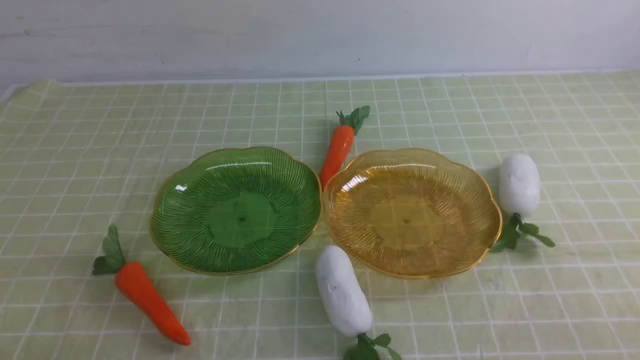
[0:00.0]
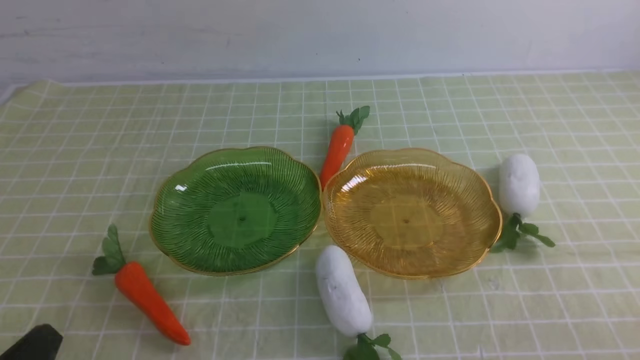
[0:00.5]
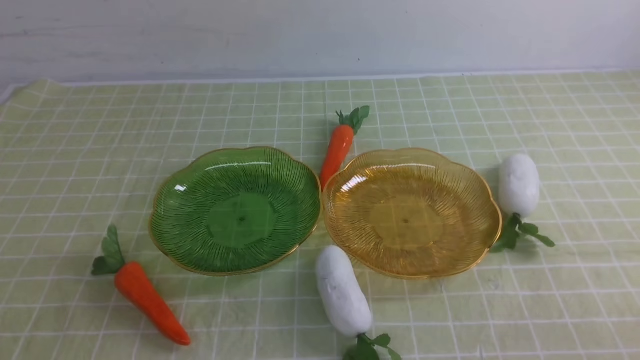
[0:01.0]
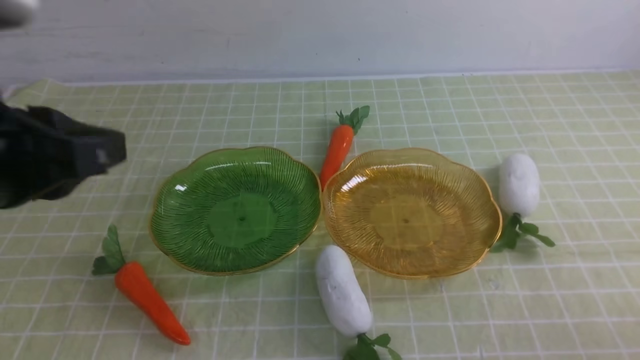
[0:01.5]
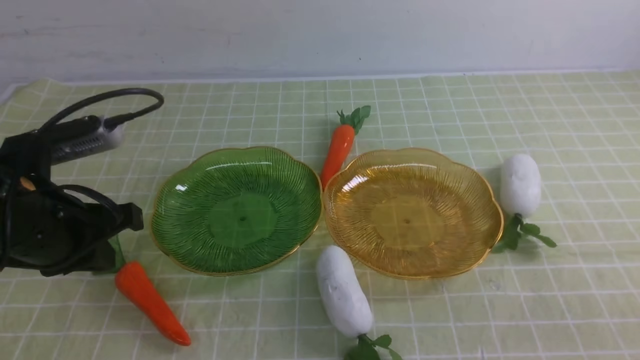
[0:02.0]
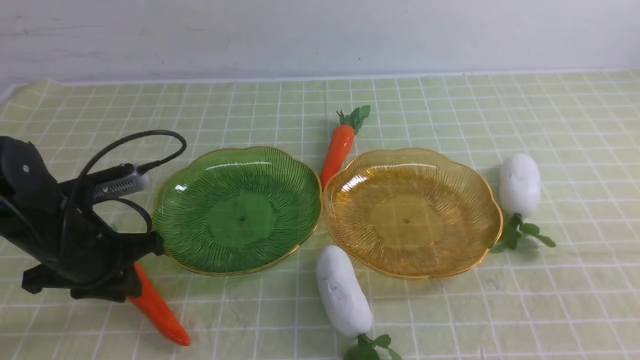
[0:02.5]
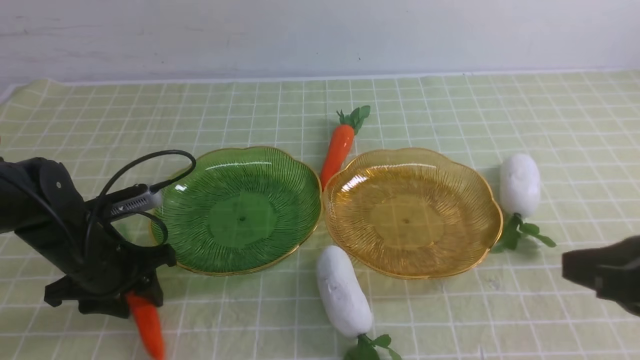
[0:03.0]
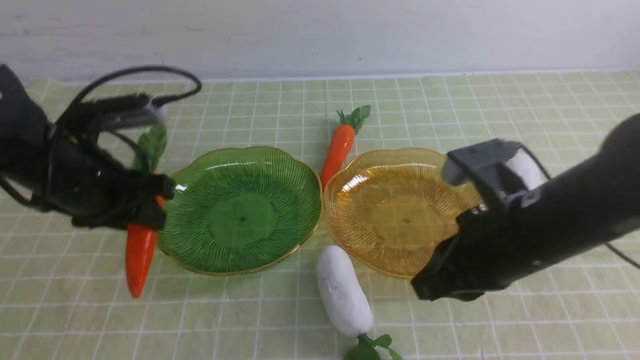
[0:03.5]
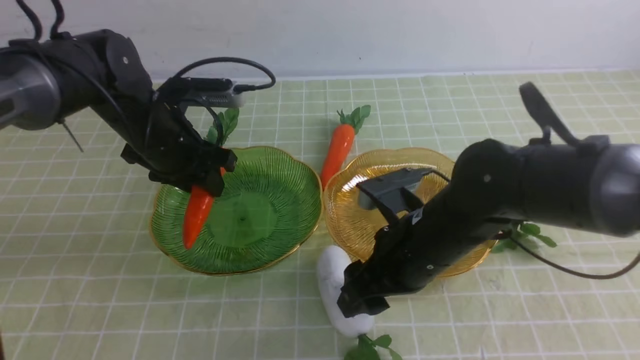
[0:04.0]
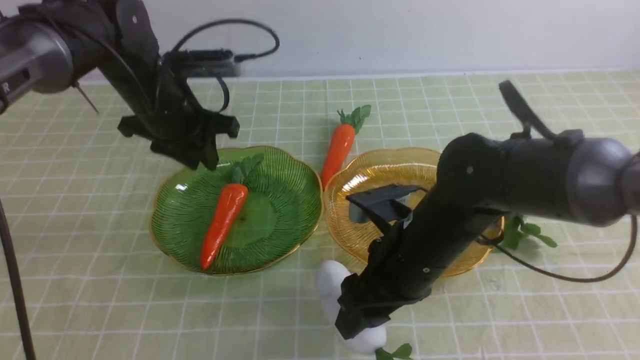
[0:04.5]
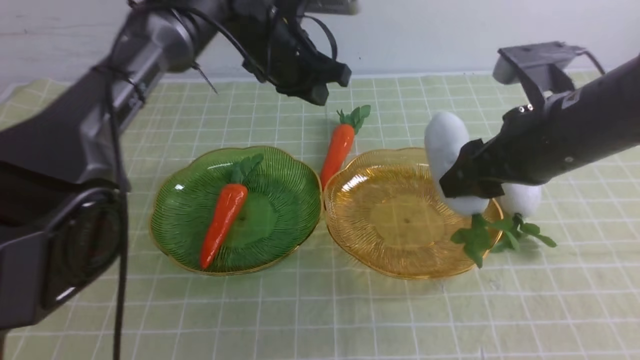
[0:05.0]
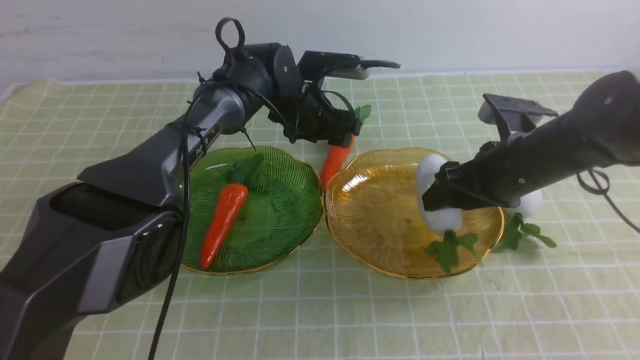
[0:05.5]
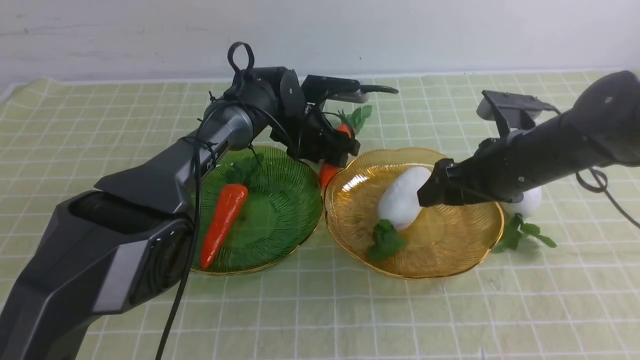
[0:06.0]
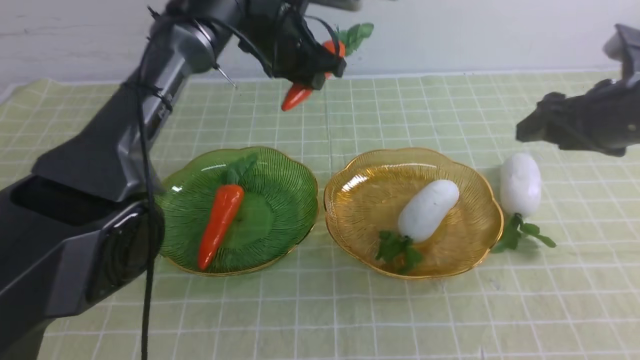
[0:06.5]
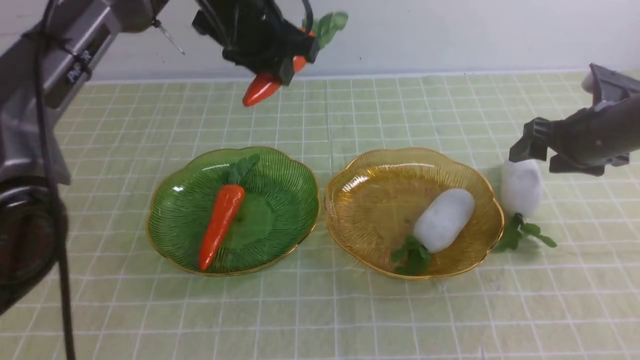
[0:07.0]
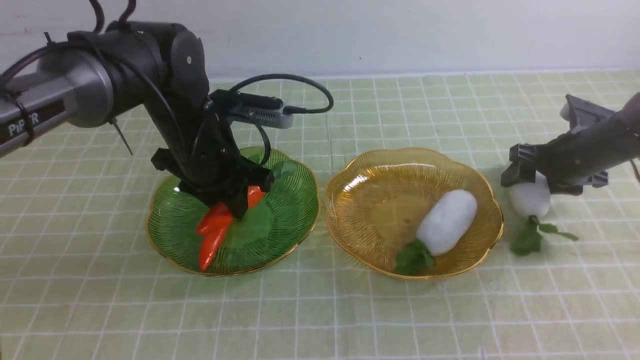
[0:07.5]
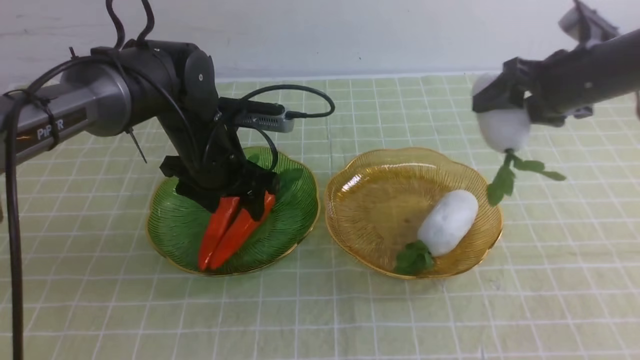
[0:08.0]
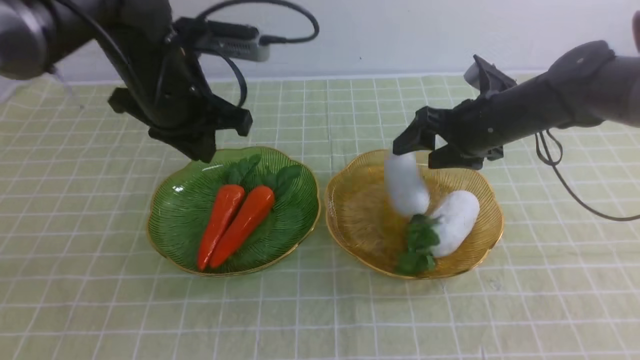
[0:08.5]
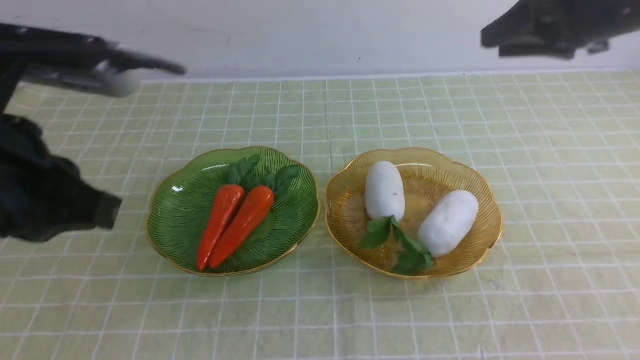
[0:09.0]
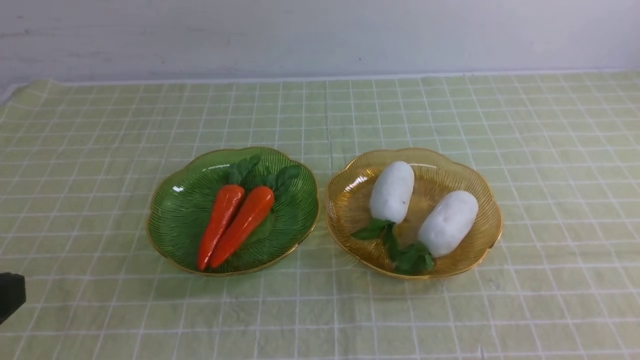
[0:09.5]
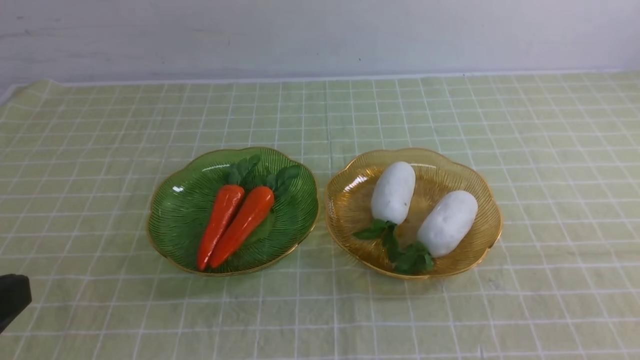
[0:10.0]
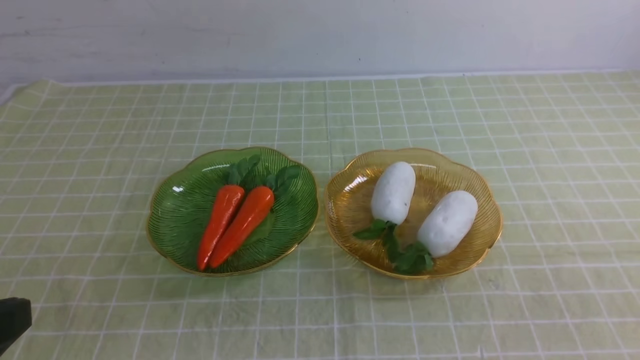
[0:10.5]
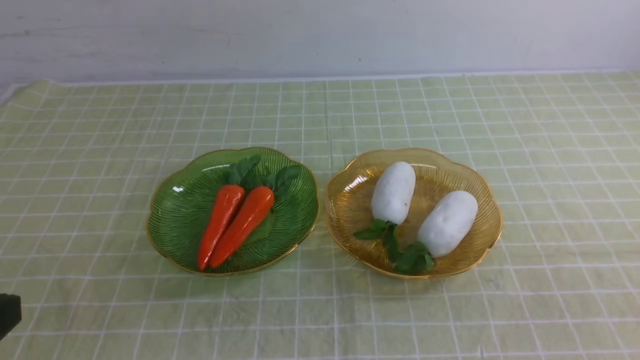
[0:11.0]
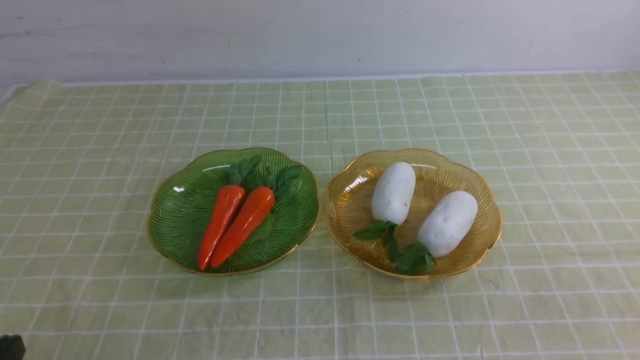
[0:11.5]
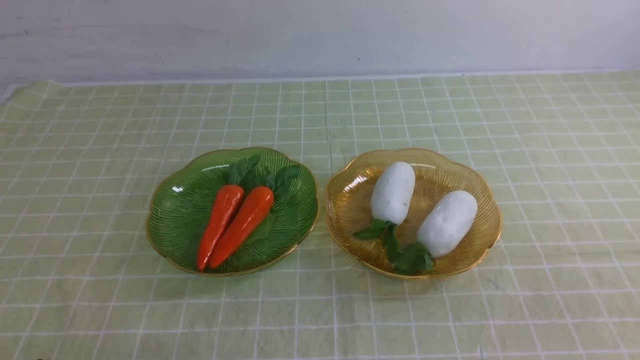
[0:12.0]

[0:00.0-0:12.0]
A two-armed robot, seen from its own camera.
Step, 0:00.0 to 0:04.5: use the left arm to grab a carrot and put it into the left plate.
Step, 0:05.0 to 0:05.5: use the right arm to grab a radish and put it into the right plate.
Step, 0:06.0 to 0:09.0: use the left arm to grab a carrot and put it into the left plate.
0:00.0 to 0:02.0: The left gripper is displaced forward and upward by roughly 20 cm.
0:02.0 to 0:04.0: The left gripper goes roughly 15 cm forward, and opens its fingers. Meanwhile the right gripper travels forward and to the left by roughly 30 cm, and opens.
0:04.0 to 0:06.0: The right gripper goes approximately 15 cm to the right and forward. The left gripper is displaced to the right, forward and downward by about 20 cm, and closes, then opens again.
0:06.0 to 0:08.0: The right gripper goes approximately 10 cm forward and to the right, while the left gripper is displaced backward, to the left and upward by approximately 15 cm.
0:08.0 to 0:10.0: Both grippers move backward, about 35 cm. The left gripper closes, while the right gripper closes.

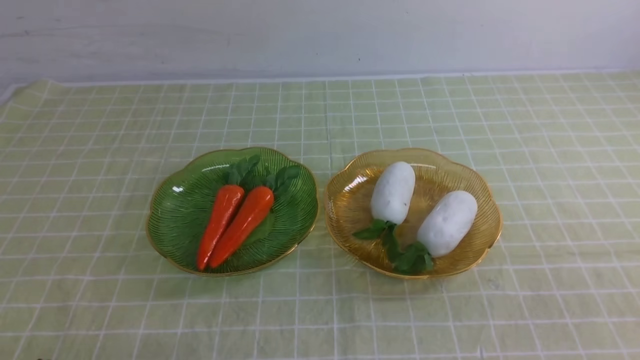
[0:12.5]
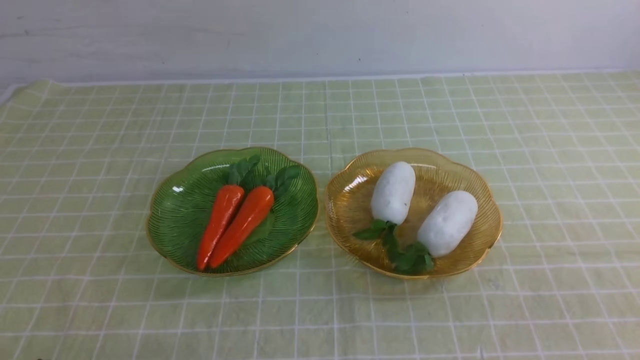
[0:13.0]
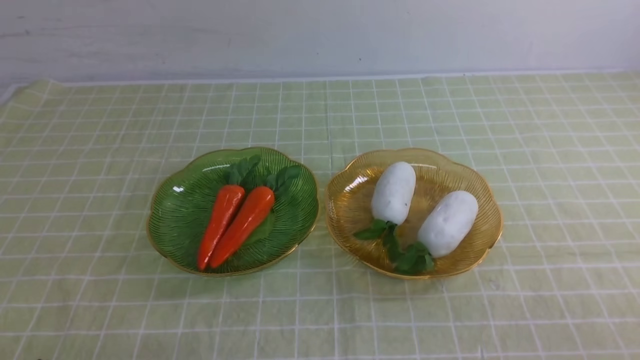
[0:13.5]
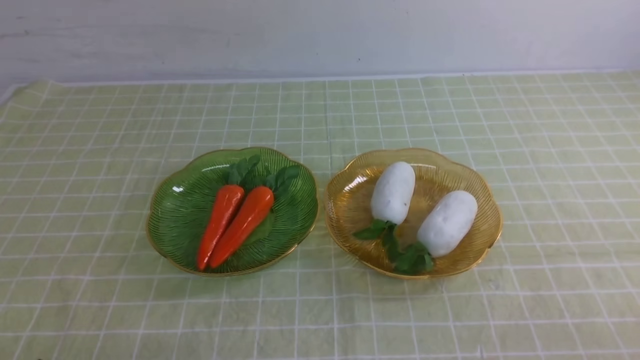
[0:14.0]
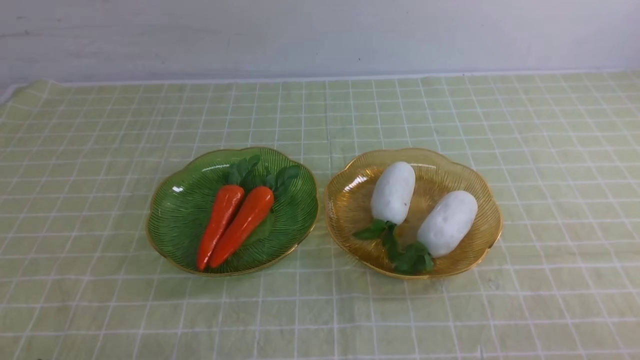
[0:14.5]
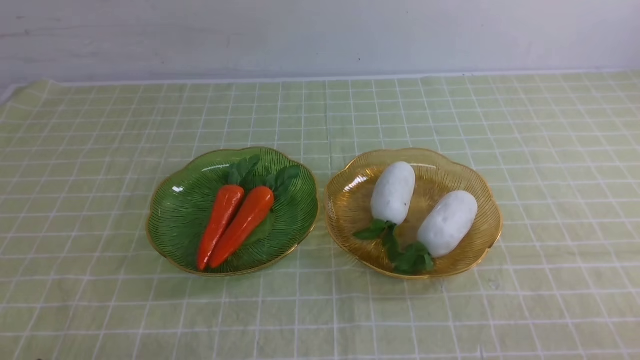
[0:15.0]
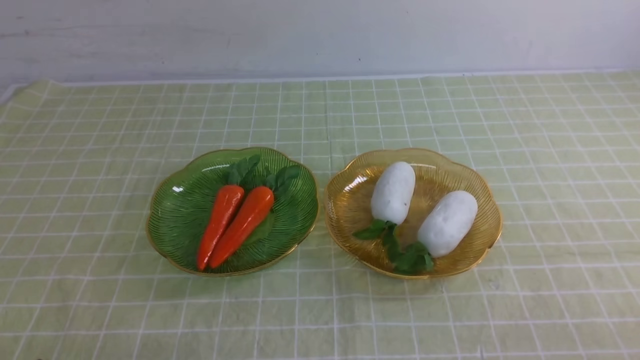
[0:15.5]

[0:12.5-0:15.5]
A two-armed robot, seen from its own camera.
0:14.0 to 0:15.5: Both grippers stay put.
